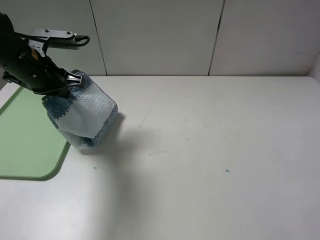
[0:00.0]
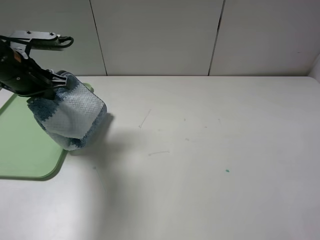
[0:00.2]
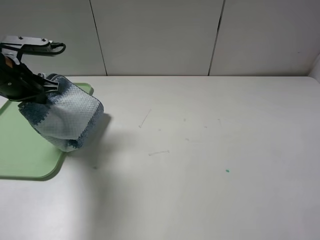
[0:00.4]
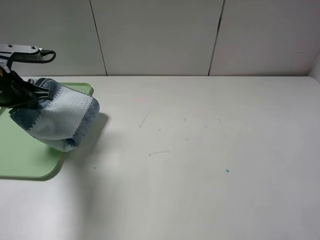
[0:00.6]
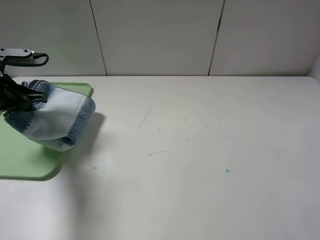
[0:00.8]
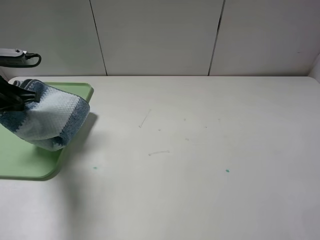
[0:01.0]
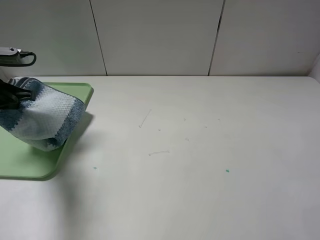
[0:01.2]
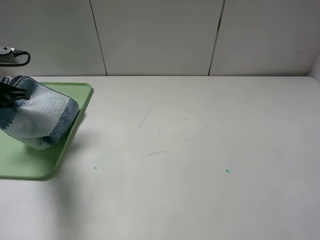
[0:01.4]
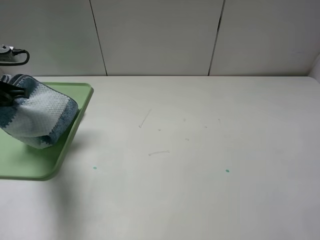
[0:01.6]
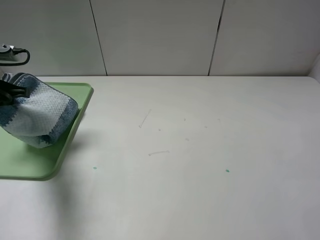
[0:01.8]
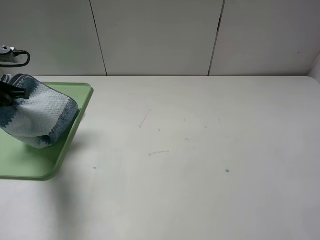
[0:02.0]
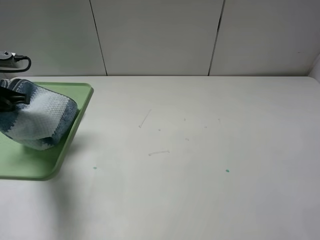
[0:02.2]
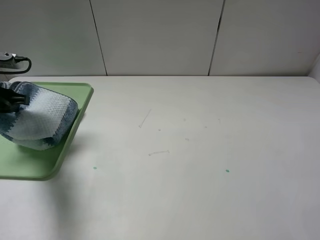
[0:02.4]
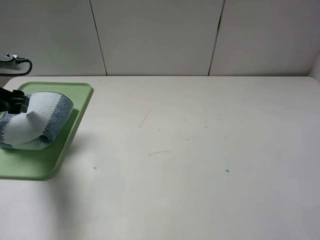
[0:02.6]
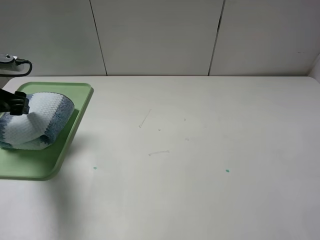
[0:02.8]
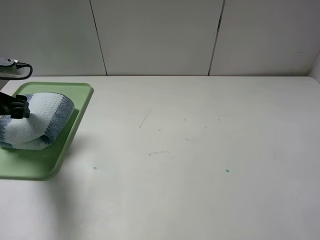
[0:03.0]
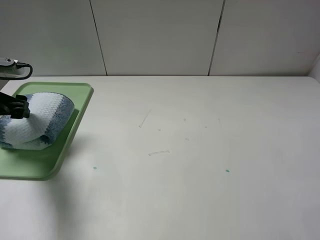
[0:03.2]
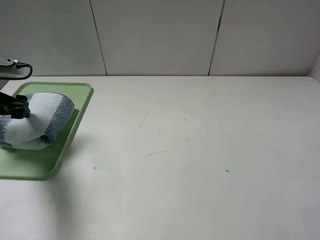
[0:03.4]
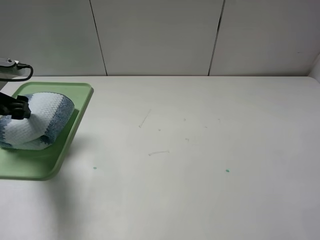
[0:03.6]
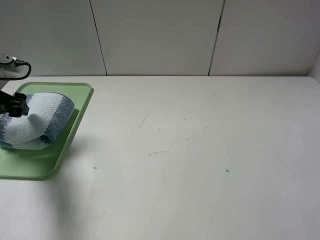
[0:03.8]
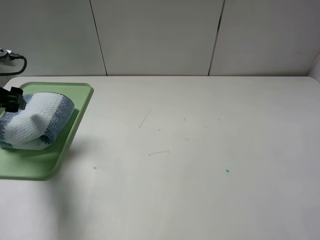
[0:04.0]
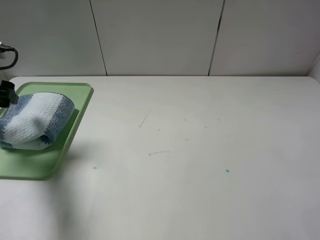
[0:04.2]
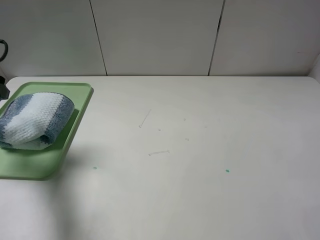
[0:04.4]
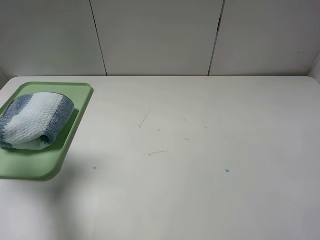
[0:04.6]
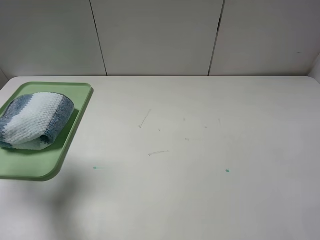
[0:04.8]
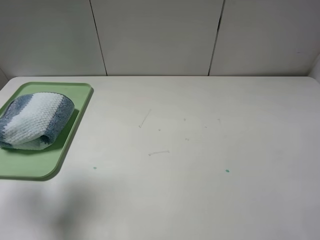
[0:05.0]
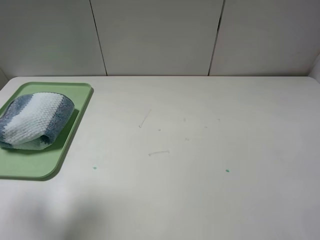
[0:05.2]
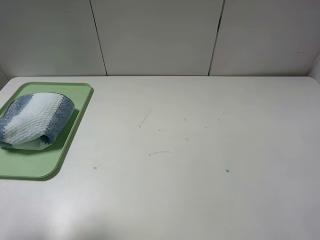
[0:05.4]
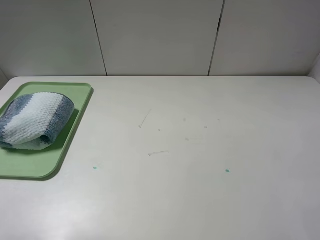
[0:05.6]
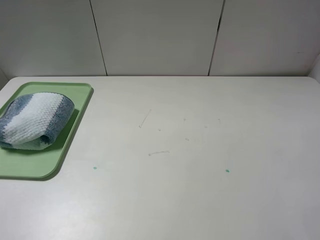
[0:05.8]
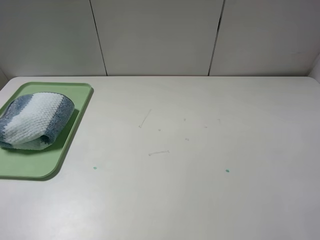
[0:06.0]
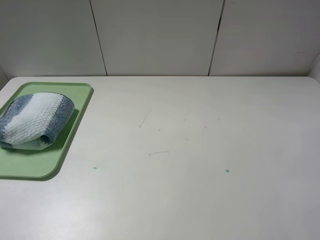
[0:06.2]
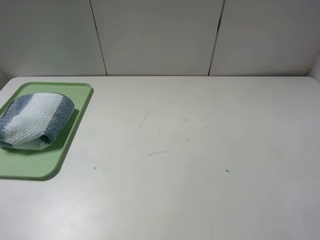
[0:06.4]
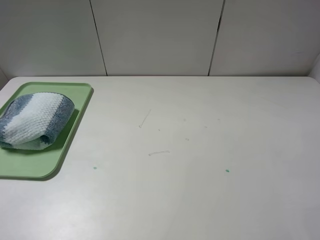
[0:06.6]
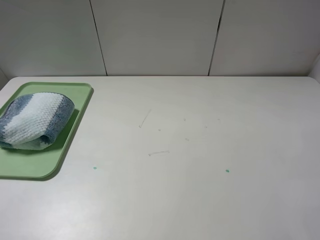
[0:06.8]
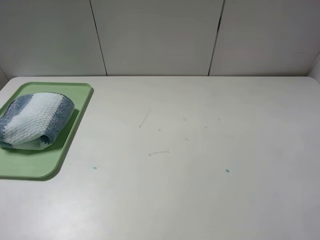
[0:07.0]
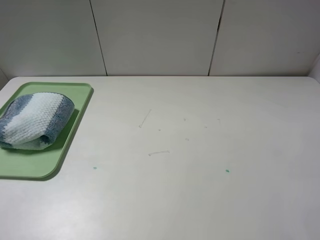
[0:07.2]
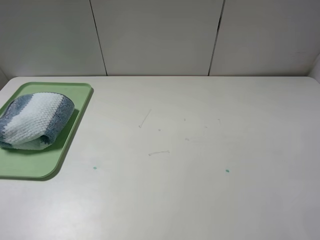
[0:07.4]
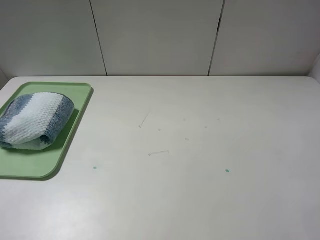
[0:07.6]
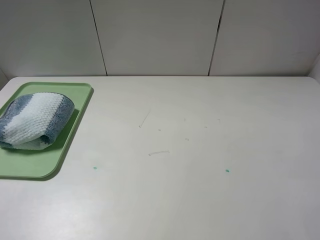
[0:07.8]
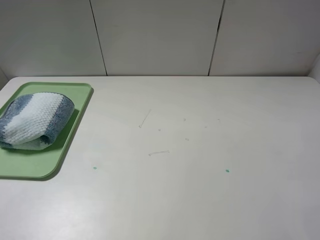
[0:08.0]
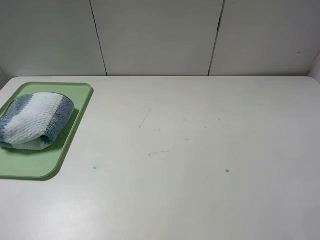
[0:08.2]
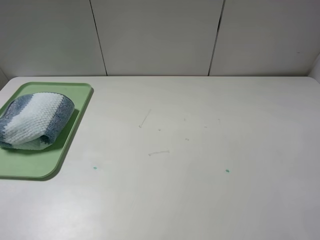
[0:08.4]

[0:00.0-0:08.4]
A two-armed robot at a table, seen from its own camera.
0:00.0 to 0:01.4: The left gripper goes roughly 10 cm to the left.
0:01.4 to 0:02.8: The left gripper opens.
0:02.8 to 0:04.2: The left gripper moves about 5 cm.
0:04.2 to 0:05.6: The left gripper shifts roughly 25 cm backward and upward.
